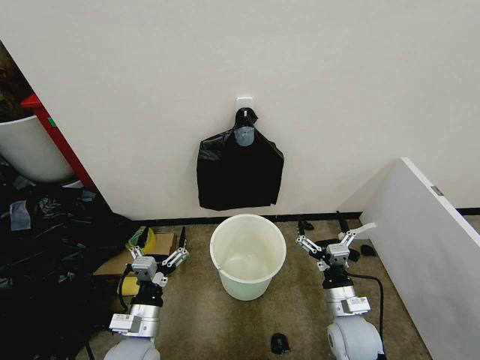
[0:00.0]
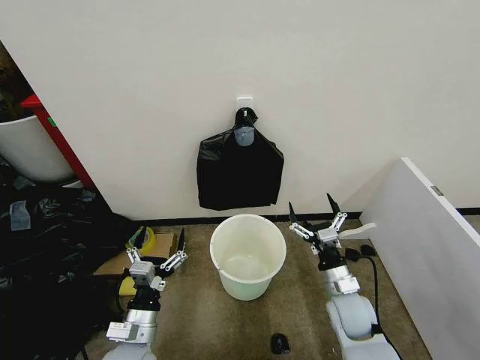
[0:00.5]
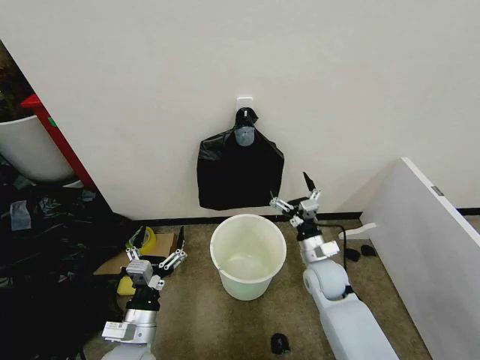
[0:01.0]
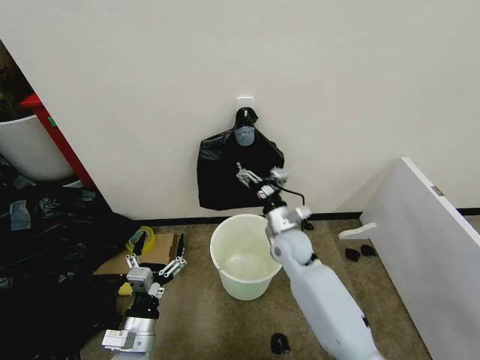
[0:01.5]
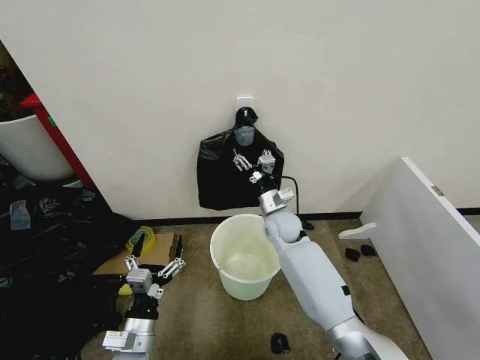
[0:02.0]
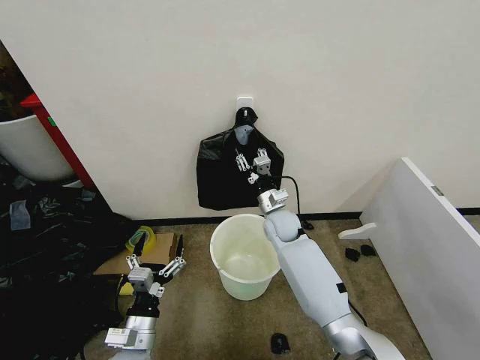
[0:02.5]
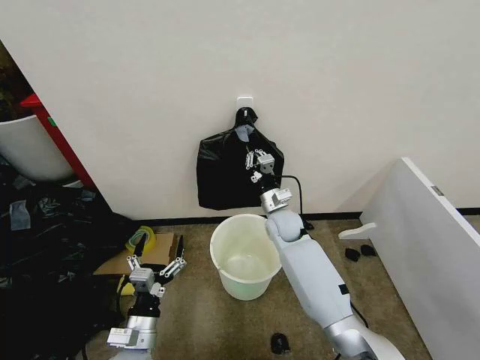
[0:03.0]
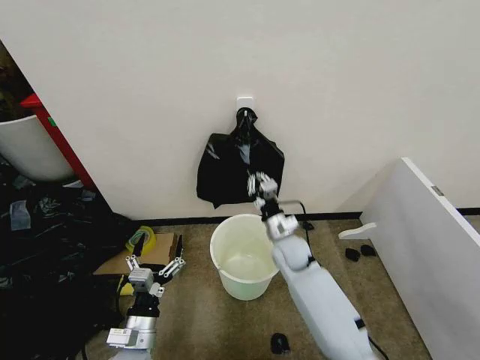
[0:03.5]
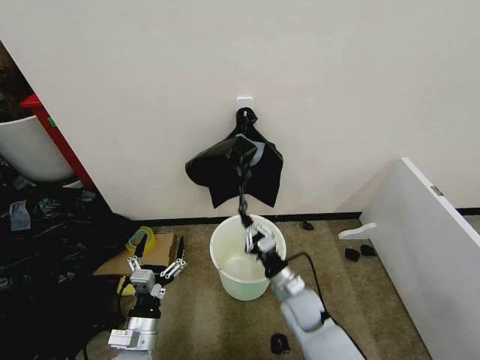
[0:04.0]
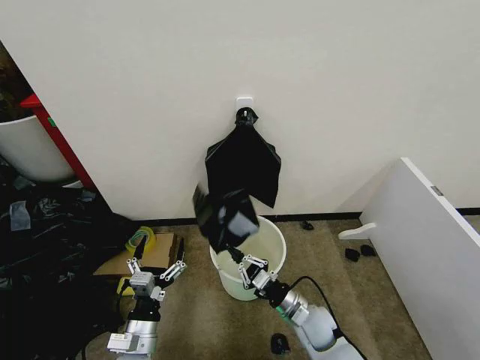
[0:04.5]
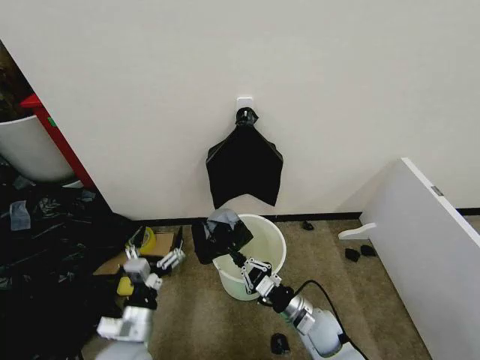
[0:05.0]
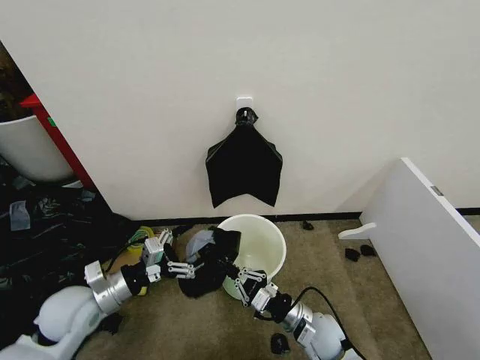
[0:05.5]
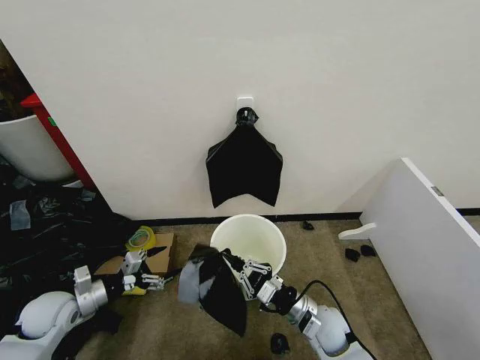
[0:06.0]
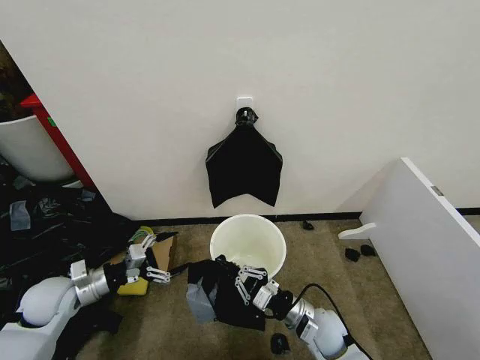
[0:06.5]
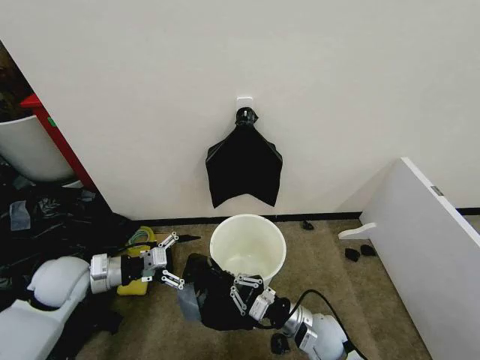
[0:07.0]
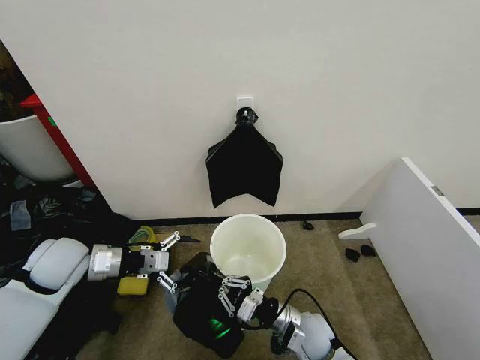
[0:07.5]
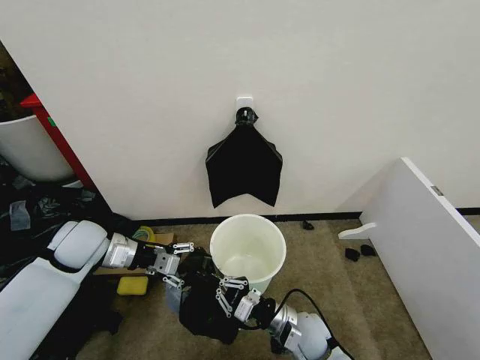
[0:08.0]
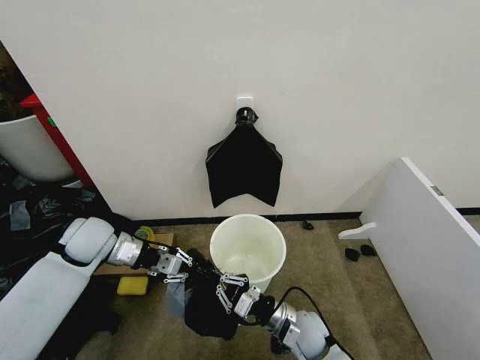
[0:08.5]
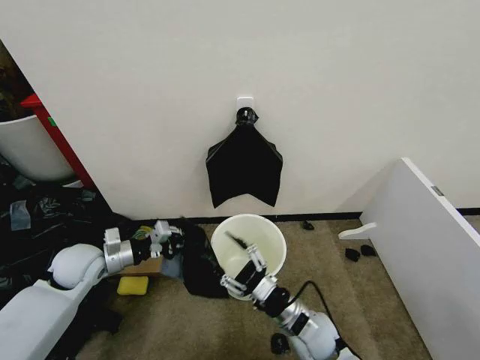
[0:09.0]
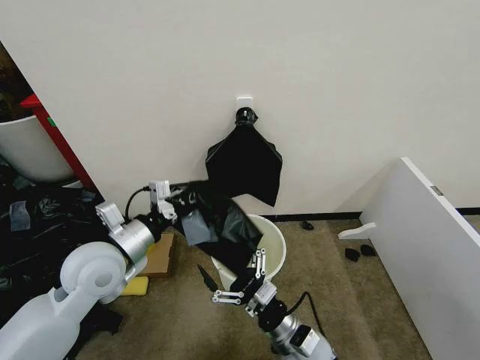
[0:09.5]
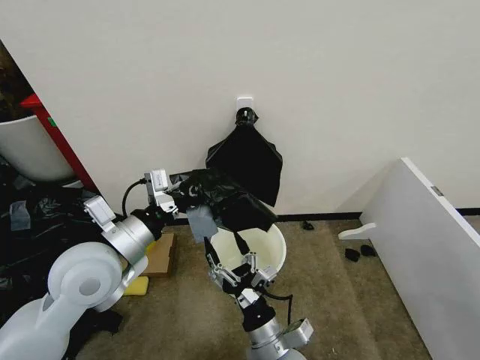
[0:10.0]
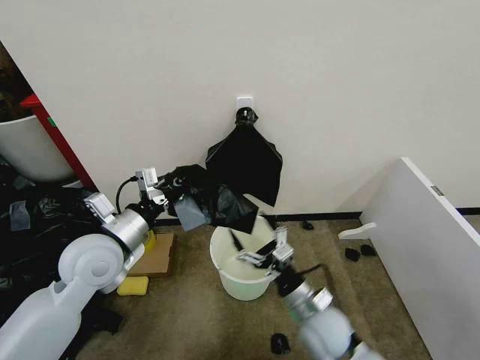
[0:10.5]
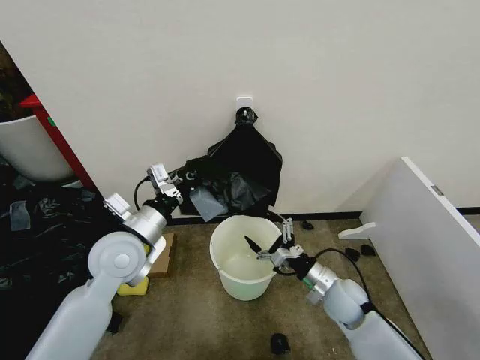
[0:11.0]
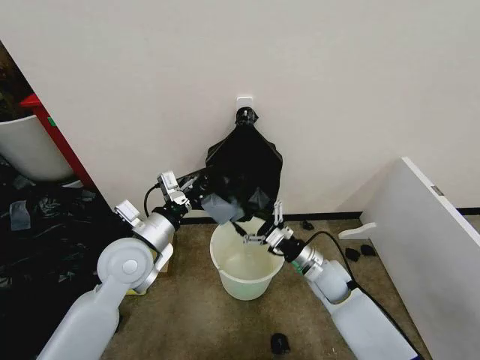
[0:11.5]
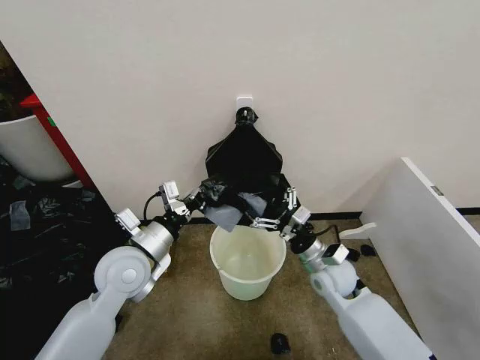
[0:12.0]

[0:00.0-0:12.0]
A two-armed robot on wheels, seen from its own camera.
Task of the whole recording: Place the garbage bag over the trash bin.
0:02.0 to 0:04.0: The right gripper moves backward and downward, roughly 20 cm, and closes.
0:04.0 to 0:06.0: The right gripper moves about 5 cm. Meanwhile the left gripper goes some 20 cm to the left and forward.
0:06.0 to 0:08.0: The left gripper moves upward, forward and to the right, some 20 cm, and closes.
0:08.0 to 0:10.0: The right gripper goes roughly 15 cm backward, upward and to the left, and opens its fingers. Meanwhile the left gripper heads backward, to the right and upward, covering about 15 cm, and closes up.
0:10.0 to 0:12.0: The right gripper moves forward and to the right, approximately 25 cm, while the left gripper heads downward, covering approximately 5 cm.

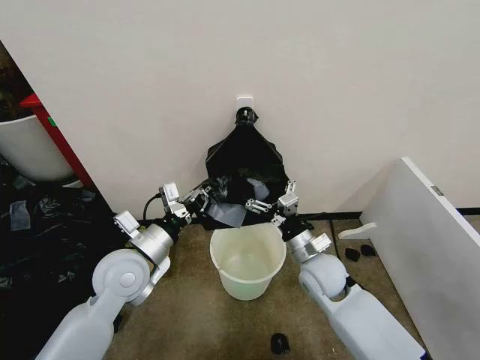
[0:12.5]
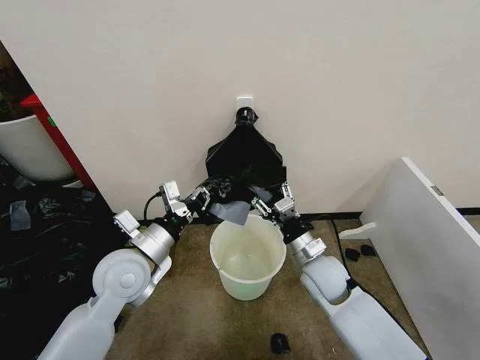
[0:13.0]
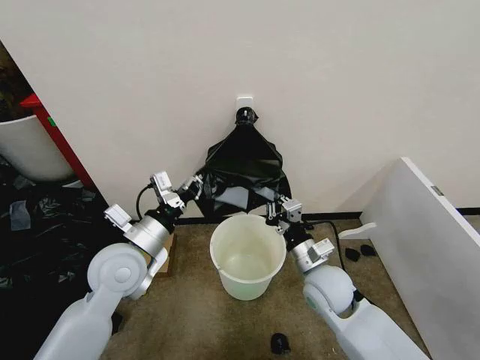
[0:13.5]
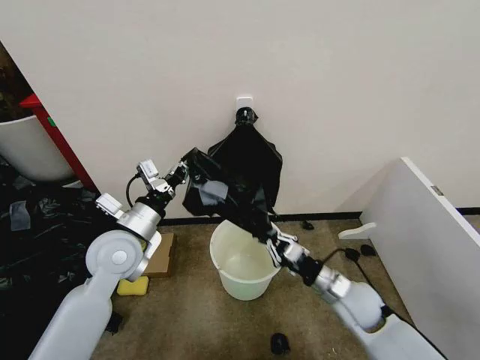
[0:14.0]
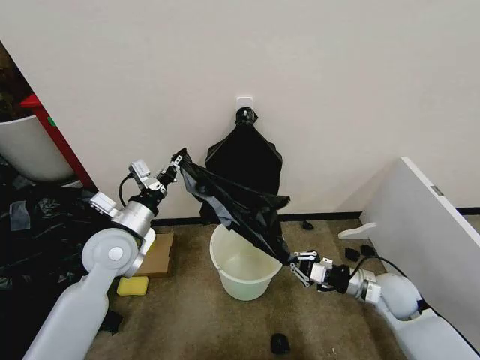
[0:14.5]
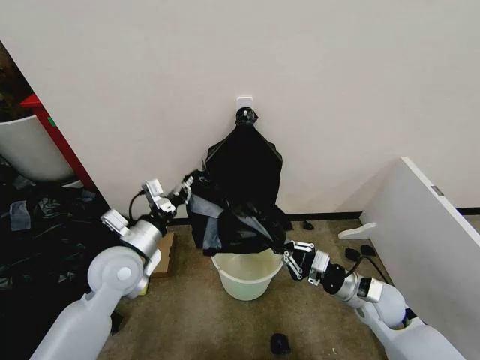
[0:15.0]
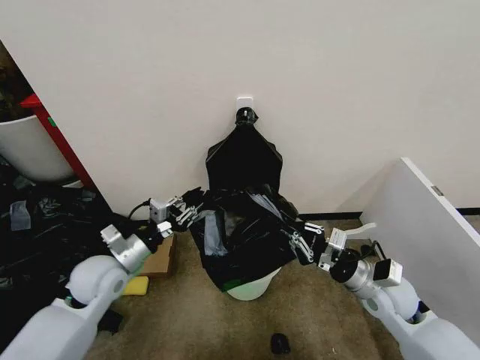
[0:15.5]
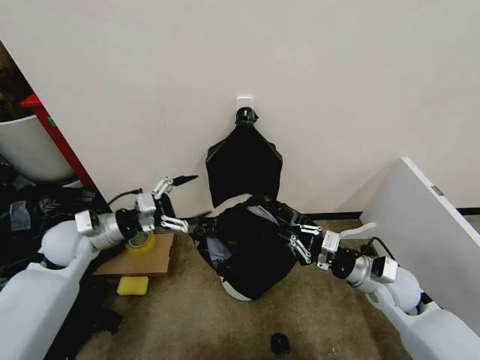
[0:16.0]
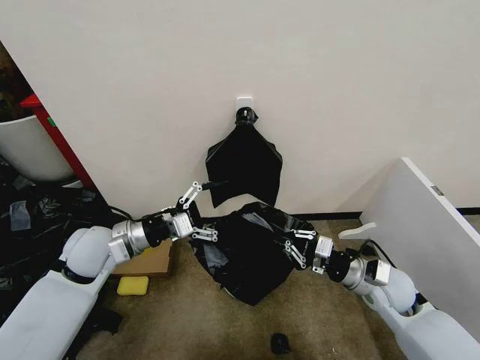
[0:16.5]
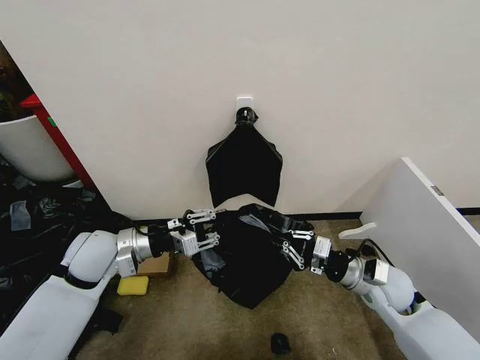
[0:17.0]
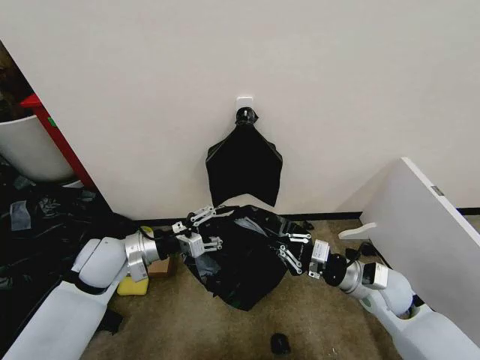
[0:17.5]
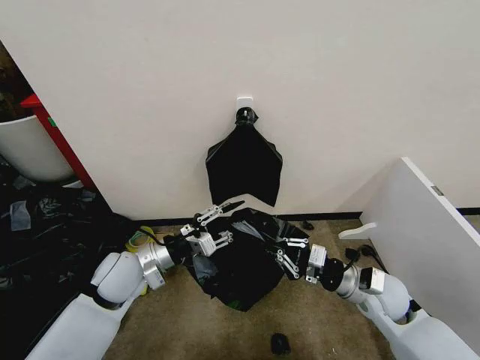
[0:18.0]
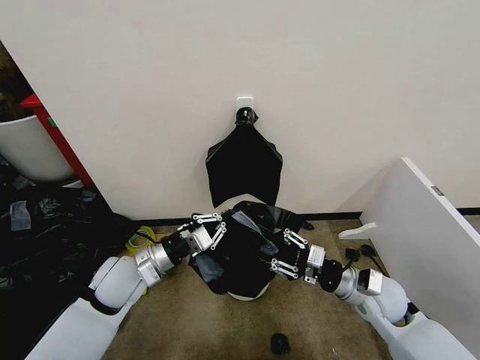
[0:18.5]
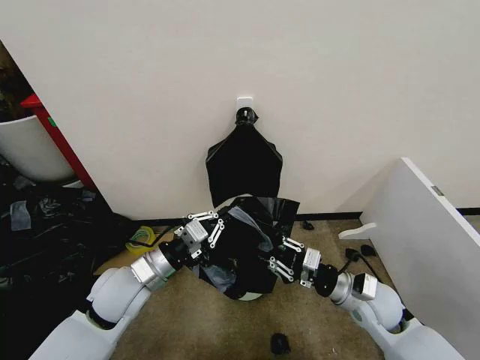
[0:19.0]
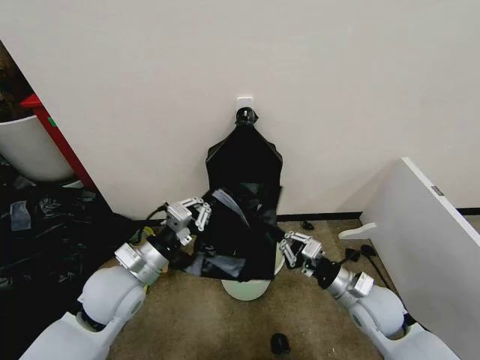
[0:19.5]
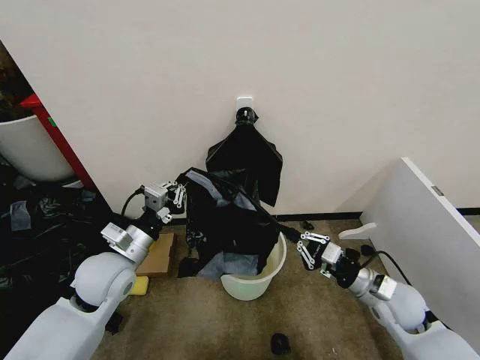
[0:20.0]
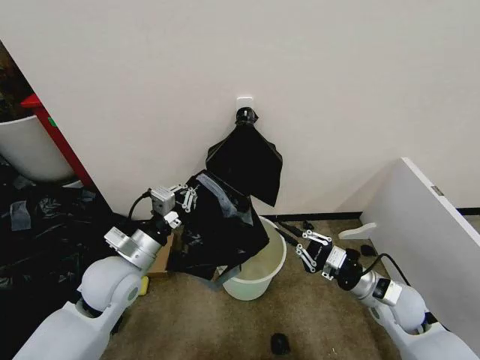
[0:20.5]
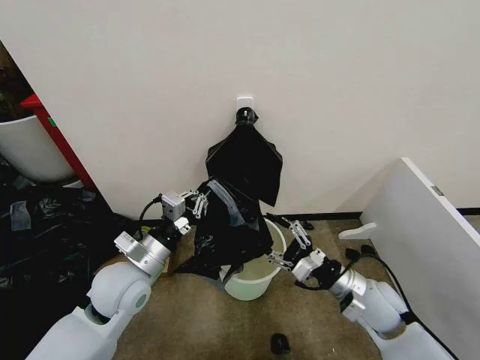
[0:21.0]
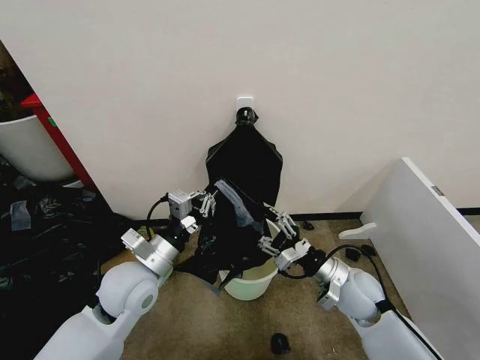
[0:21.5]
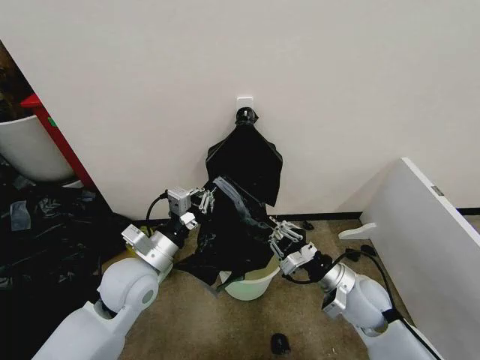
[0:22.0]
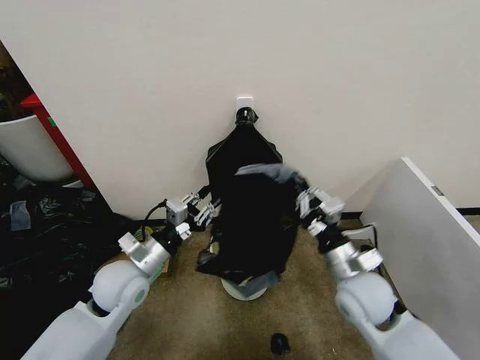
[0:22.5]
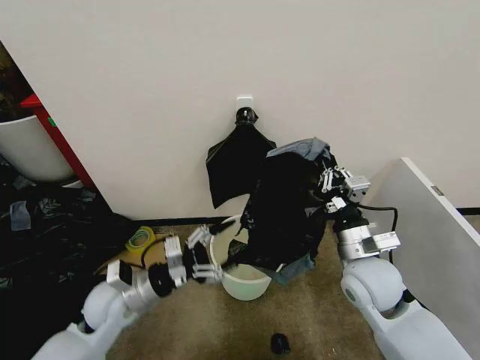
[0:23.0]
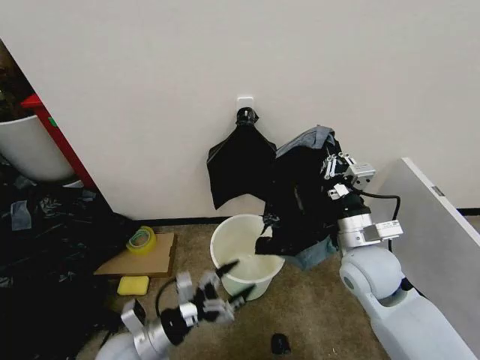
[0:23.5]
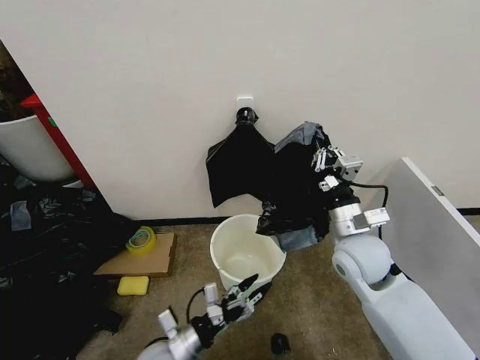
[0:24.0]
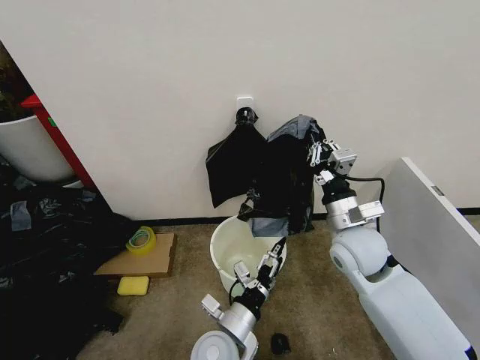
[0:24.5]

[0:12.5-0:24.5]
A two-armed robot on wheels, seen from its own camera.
Task of the whole recording: Place the garbage bag over the trash bin.
0:12.5 to 0:14.5: The right gripper heads to the right, covering about 15 cm, and closes up. Meanwhile the left gripper changes place by approximately 5 cm.
0:14.5 to 0:16.5: The left gripper goes to the left and returns, about 10 cm each way, and opens. The right gripper moves upward, approximately 5 cm.
0:16.5 to 0:18.5: The left gripper shifts roughly 5 cm downward, and closes up; the right gripper opens its fingers.
0:20.5 to 0:22.5: The right gripper travels to the left by about 10 cm, and opens, then closes again.
0:22.5 to 0:24.5: The right gripper travels forward and upward by about 10 cm. Meanwhile the left gripper heads to the right, backward and downward, covering approximately 25 cm, and opens.

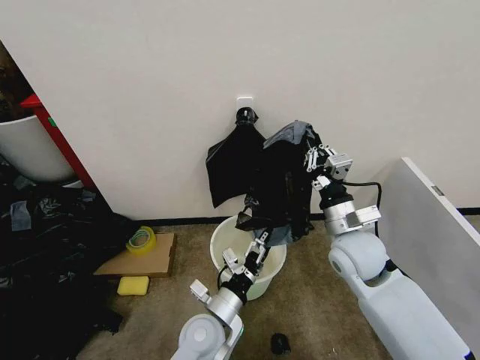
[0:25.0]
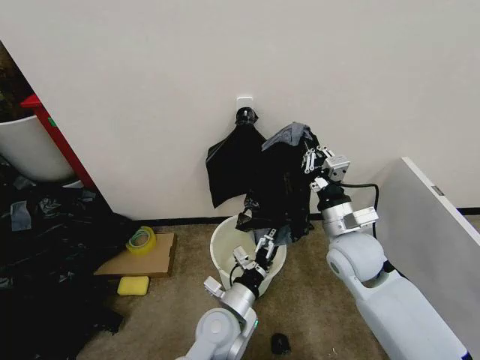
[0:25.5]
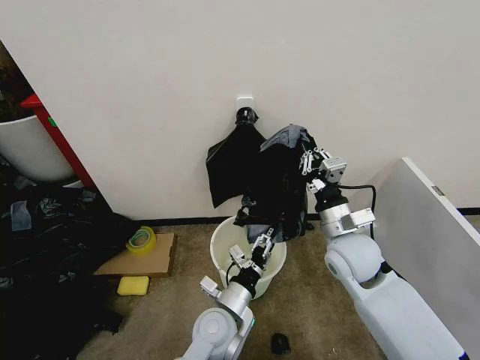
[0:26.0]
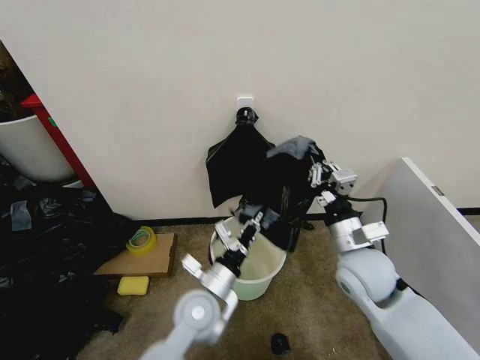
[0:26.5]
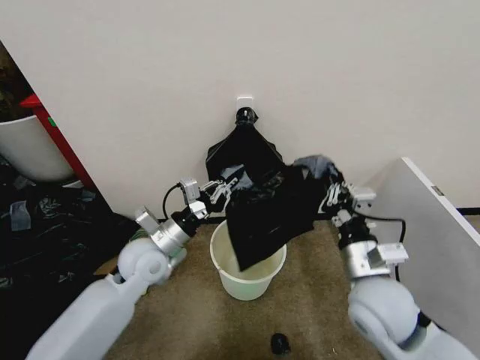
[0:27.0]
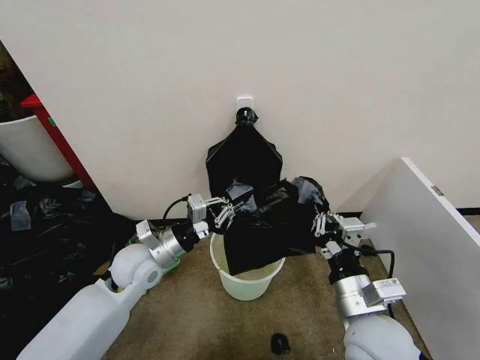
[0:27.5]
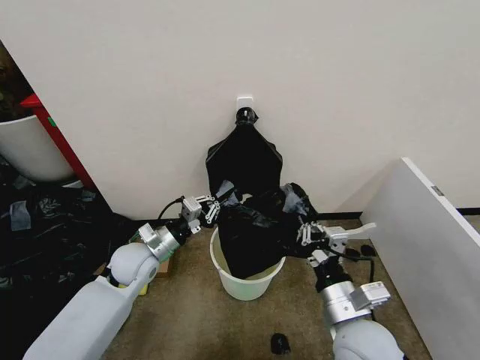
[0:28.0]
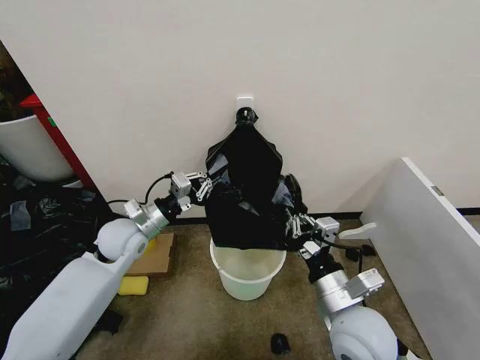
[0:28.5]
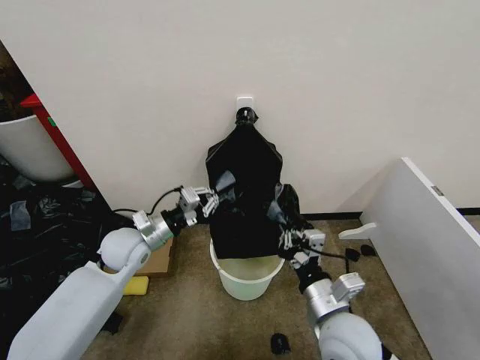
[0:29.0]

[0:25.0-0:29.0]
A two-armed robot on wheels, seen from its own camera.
Task of the whole recording: Place the garbage bag over the trash bin.
0:25.0 to 0:27.0: The left gripper goes some 20 cm to the left, forward and upward, and closes, while the right gripper moves backward, some 10 cm.
0:27.0 to 0:29.0: The left gripper travels to the left by about 5 cm. The right gripper shifts some 10 cm downward and to the left.
